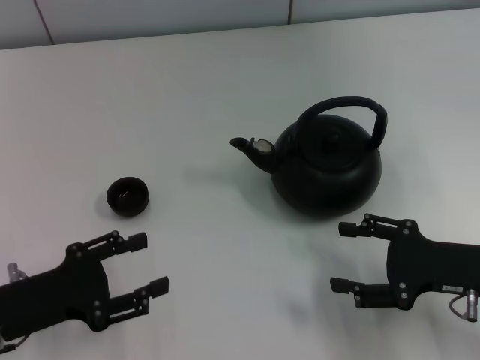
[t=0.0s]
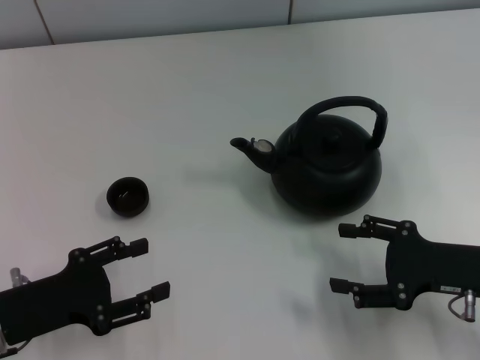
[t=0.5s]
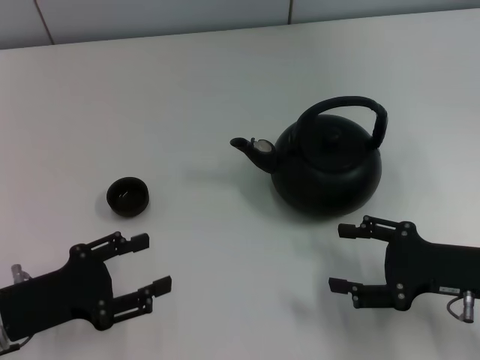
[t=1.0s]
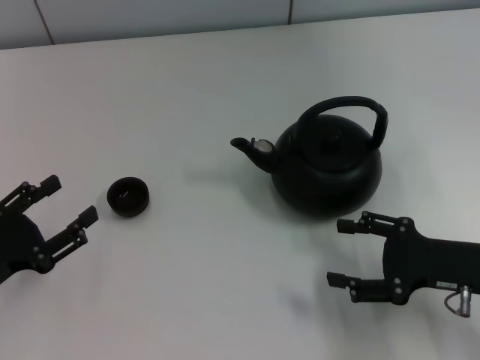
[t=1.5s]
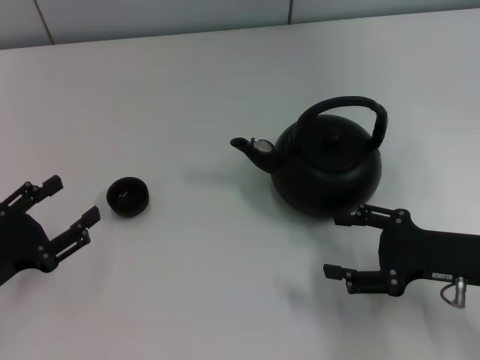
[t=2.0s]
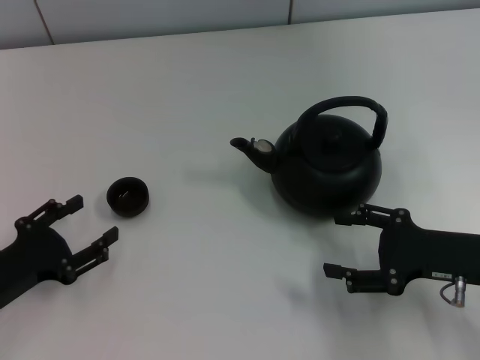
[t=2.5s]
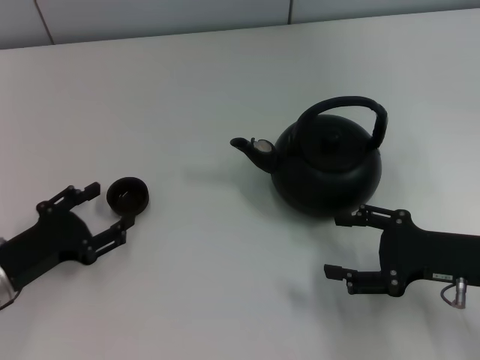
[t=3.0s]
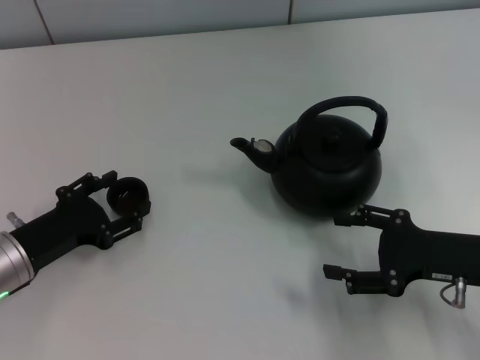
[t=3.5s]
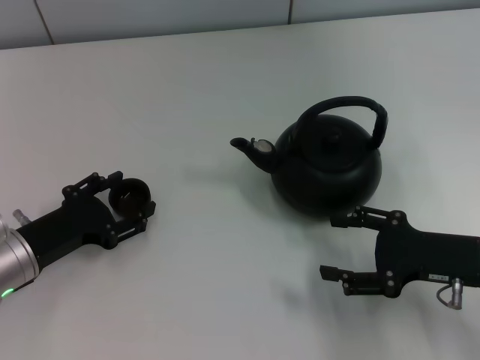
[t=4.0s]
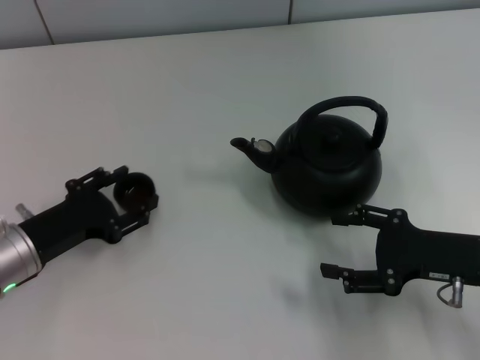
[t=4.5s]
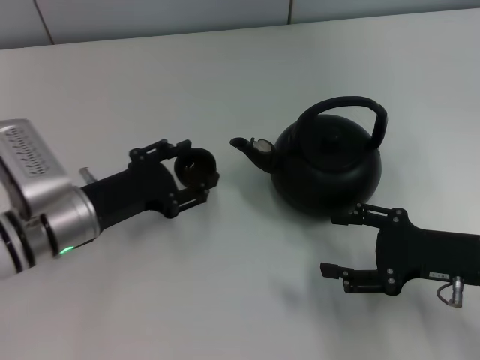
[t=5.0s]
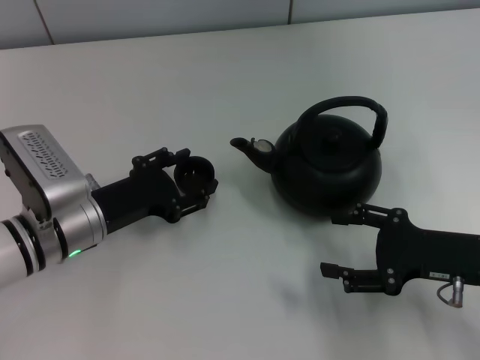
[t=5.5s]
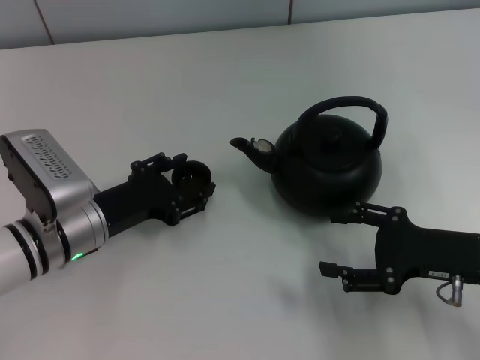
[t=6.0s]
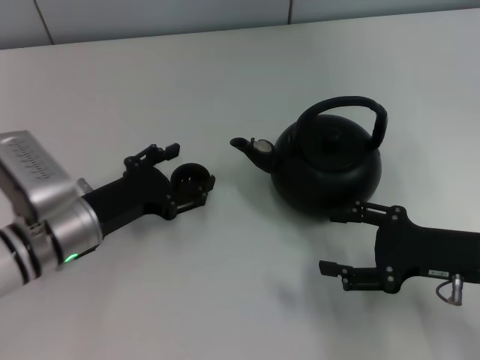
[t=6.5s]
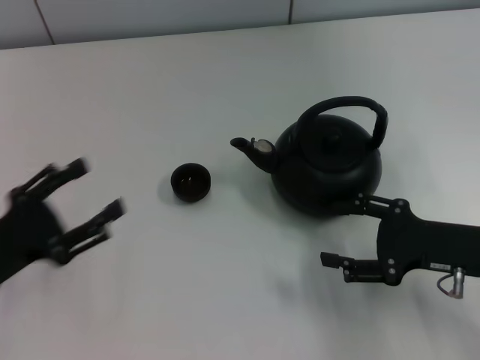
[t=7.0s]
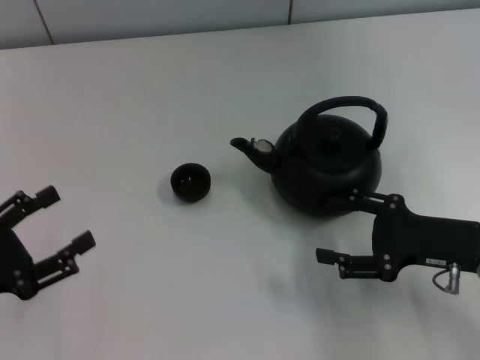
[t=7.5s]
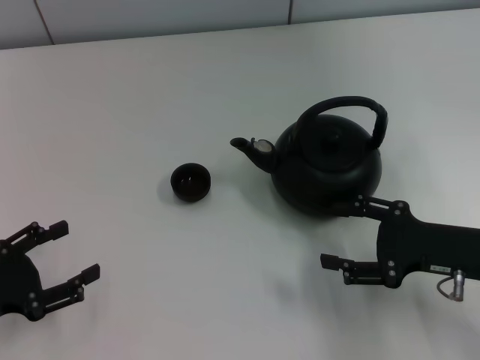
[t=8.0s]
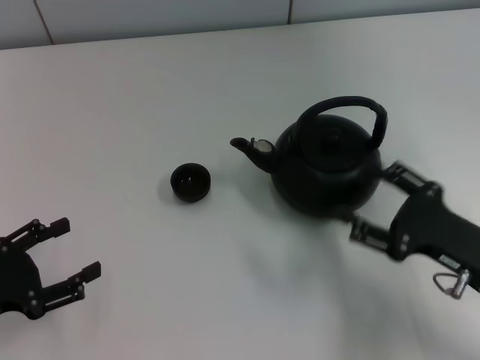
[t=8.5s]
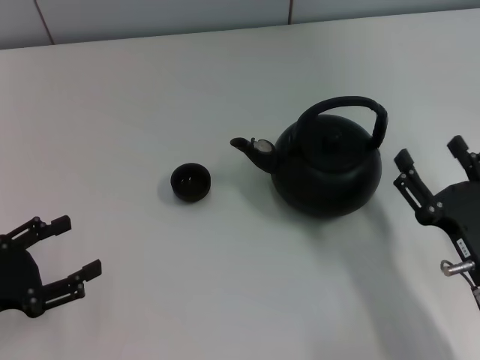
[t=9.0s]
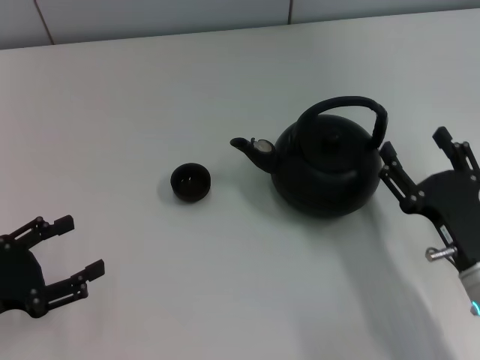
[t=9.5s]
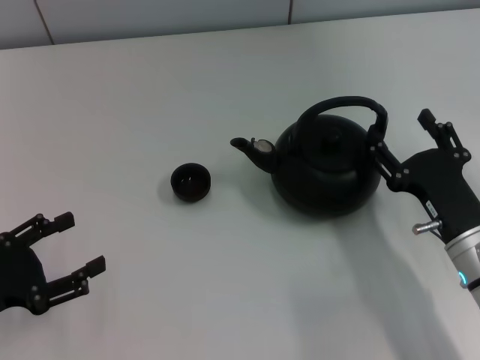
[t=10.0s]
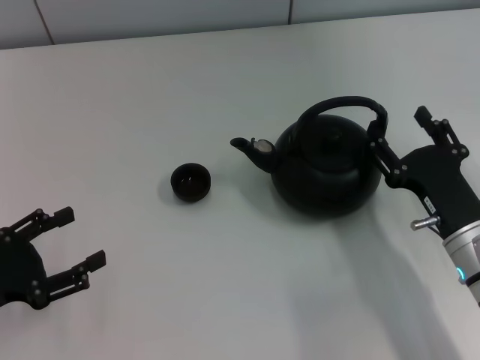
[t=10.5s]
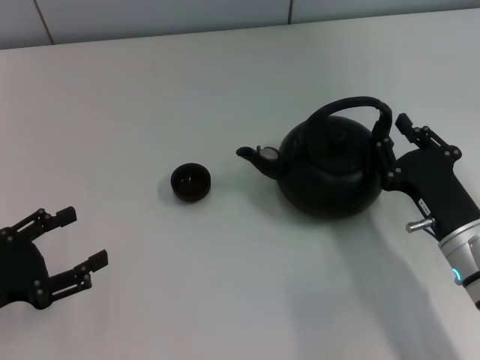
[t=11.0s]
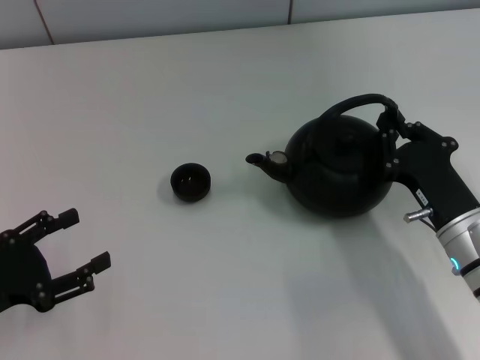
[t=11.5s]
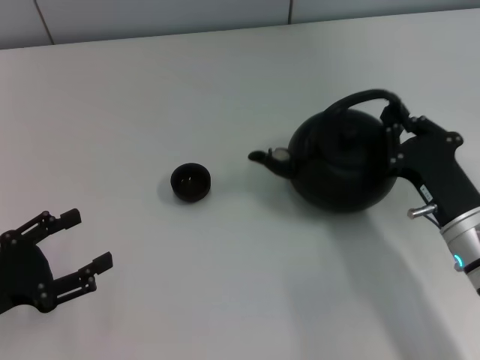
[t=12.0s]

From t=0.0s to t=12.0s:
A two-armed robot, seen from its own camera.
Task of the whole recording: Grasp the handle of the teapot with one hand and pour tea into the teacup.
Step, from t=0.0s to t=4.5s: Pick up the teacup with the left gripper.
Step, from t=5.0s to t=6.5s: Place the teacup in the center of view with the left gripper.
From t=2.0s to t=4.0s: The left gripper goes some 5 cm forward and to the right.
From t=4.0s to t=6.0s: The left gripper is displaced to the right by approximately 5 cm, and opens.
From t=6.0s to t=8.0s: The left gripper goes some 15 cm to the left and backward, and opens its fingers.
From t=8.0s to t=10.0s: The right gripper shifts by some 5 cm.
From t=10.0s to t=12.0s: The right gripper closes.

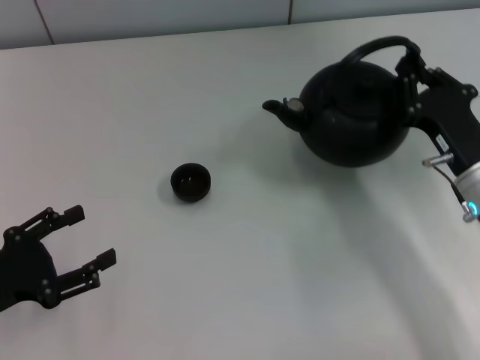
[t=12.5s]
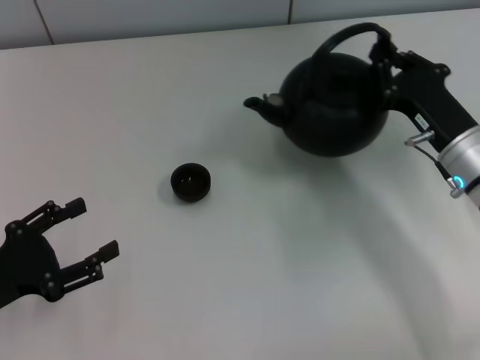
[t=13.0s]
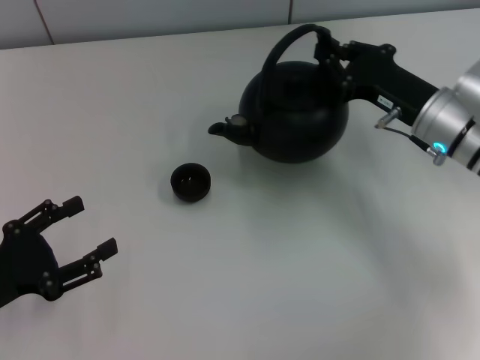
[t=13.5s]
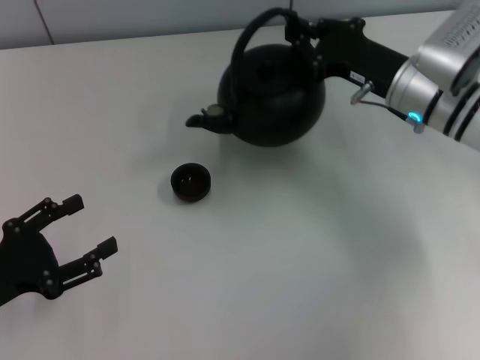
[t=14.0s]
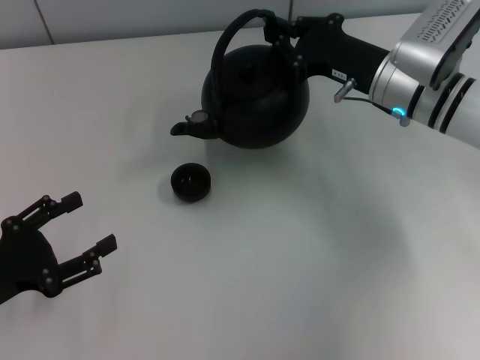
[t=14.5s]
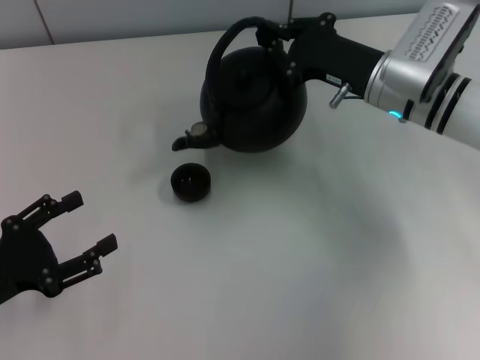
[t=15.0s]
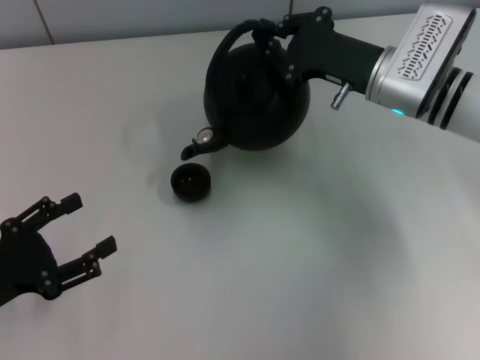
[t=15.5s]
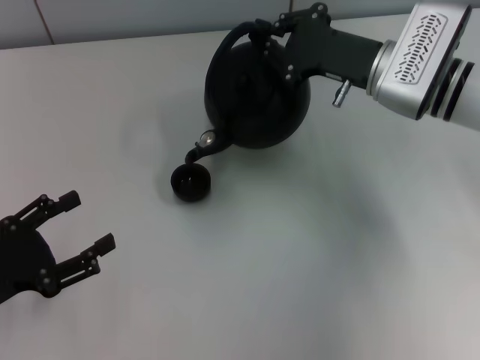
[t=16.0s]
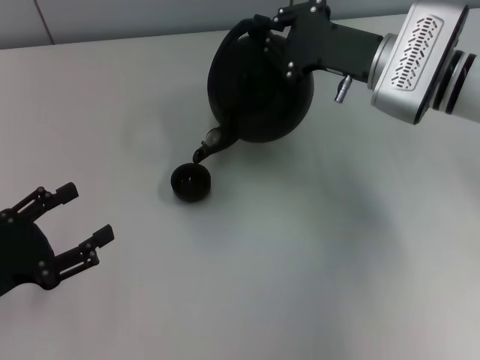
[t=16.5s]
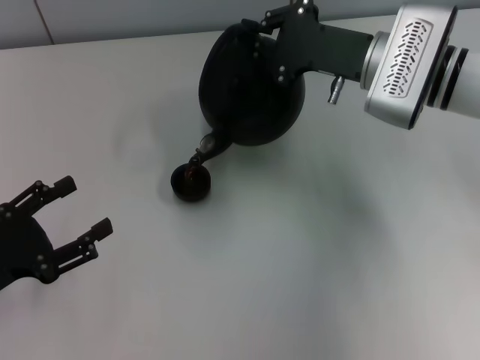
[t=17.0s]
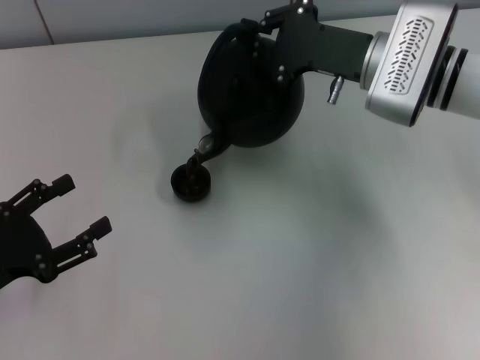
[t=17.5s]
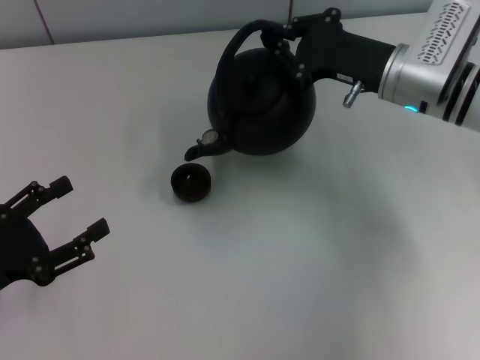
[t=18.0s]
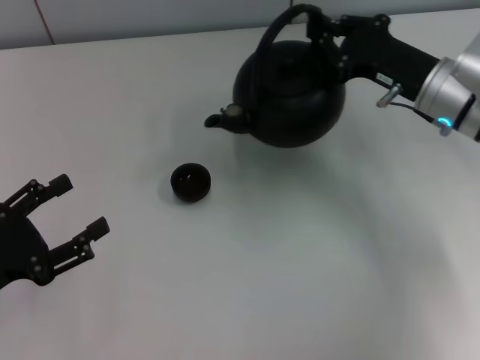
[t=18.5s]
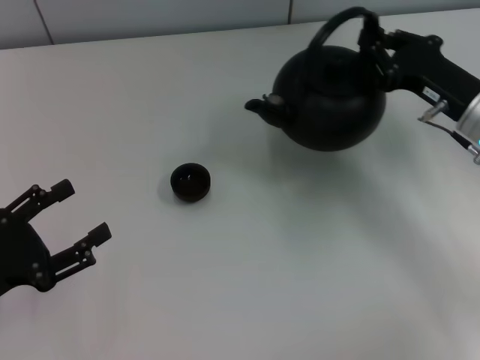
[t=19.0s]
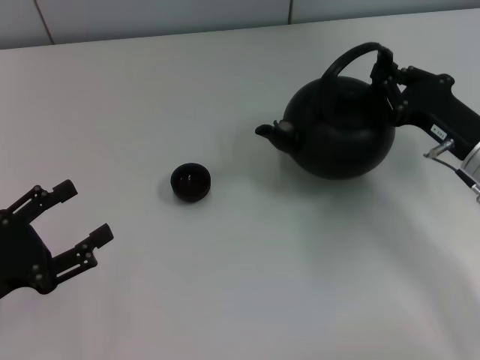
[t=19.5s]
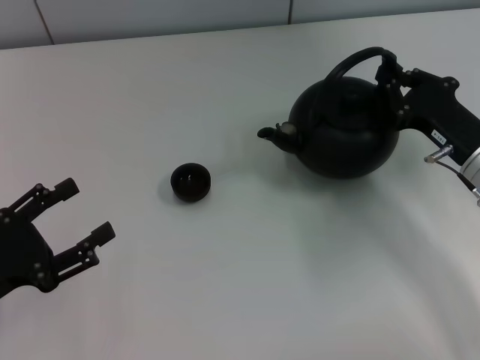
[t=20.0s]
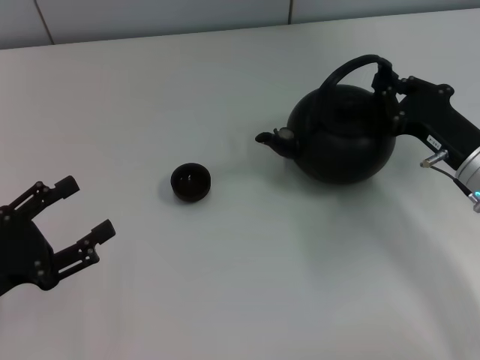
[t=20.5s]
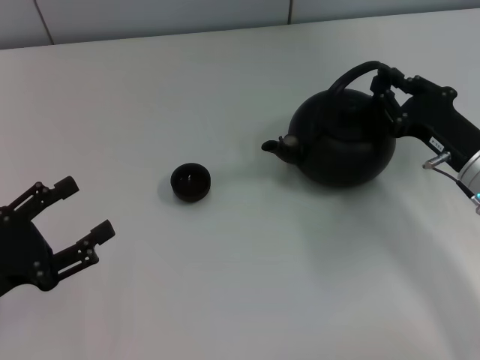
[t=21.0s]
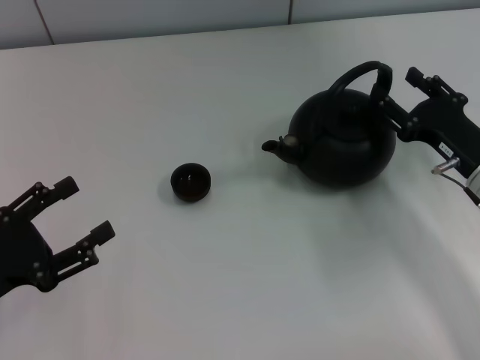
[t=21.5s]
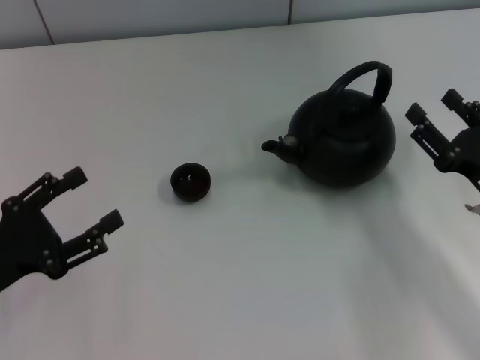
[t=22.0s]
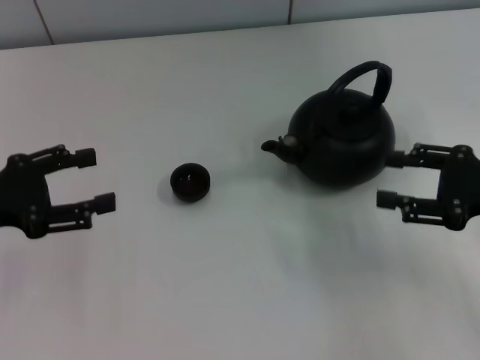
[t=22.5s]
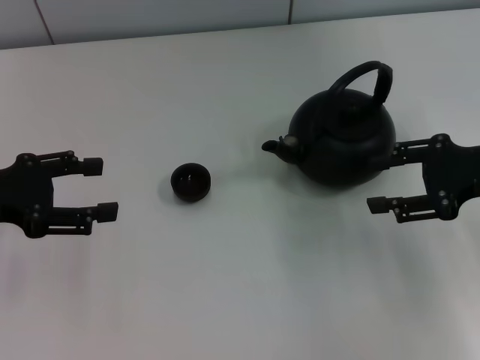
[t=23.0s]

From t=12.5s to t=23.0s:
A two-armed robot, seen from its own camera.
Task of the whole recording: Grasp the handle of the teapot with one hand and pour tea into the teacup.
Step, from t=19.0s to t=21.5s: Put down the teapot with the right gripper.
From t=12.5s to t=14.5s: The right gripper is displaced forward, upward and to the left by some 15 cm.
From t=16.5s to t=19.0s: The right gripper goes approximately 10 cm to the right and backward.
From t=19.0s to t=21.0s: The right gripper ends up roughly 5 cm from where it was.
From t=21.0s to t=23.0s: The right gripper is displaced upward by approximately 10 cm, and opens. Meanwhile the left gripper heads forward and upward, covering roughly 10 cm.

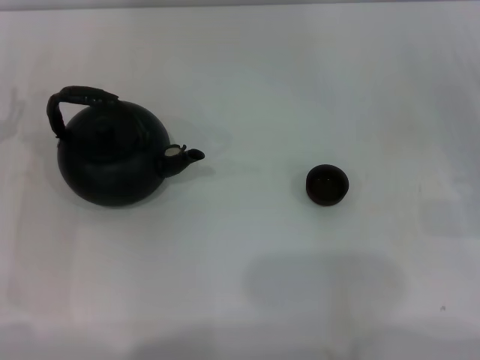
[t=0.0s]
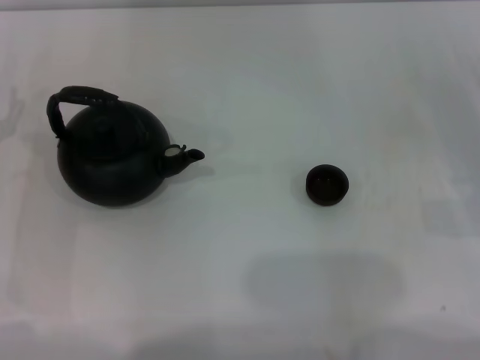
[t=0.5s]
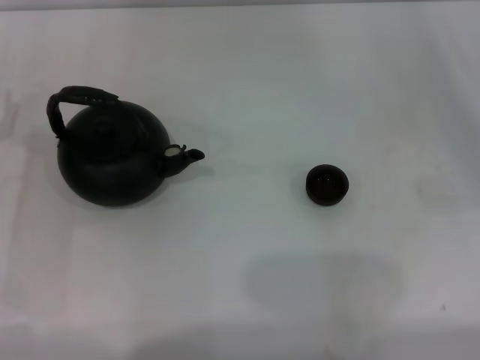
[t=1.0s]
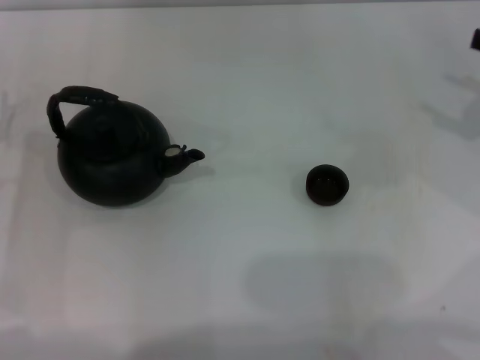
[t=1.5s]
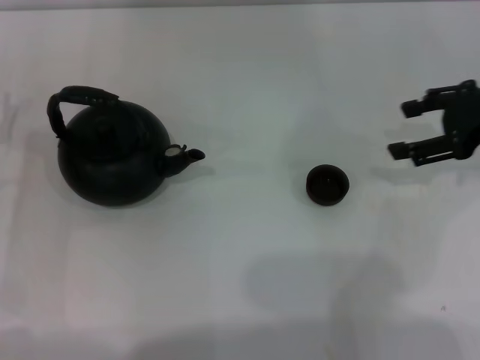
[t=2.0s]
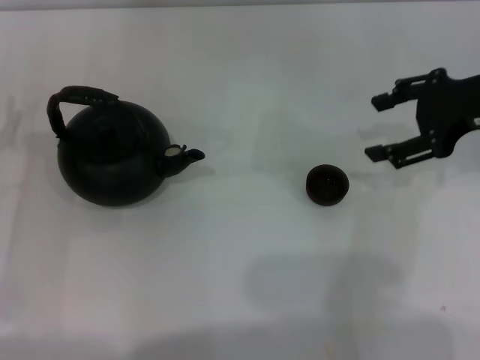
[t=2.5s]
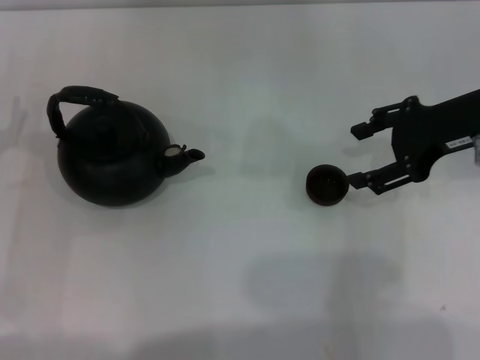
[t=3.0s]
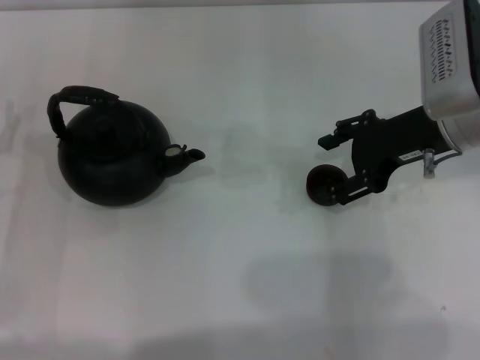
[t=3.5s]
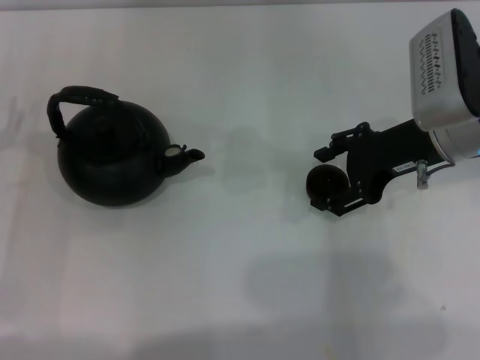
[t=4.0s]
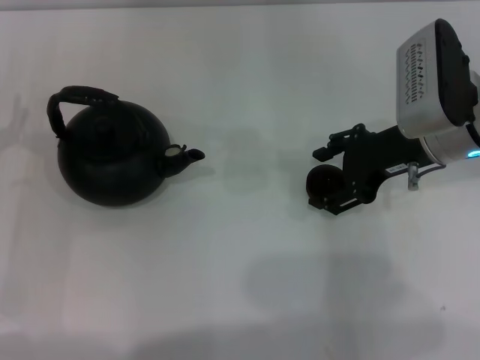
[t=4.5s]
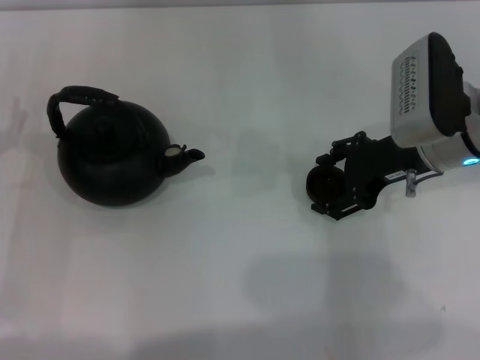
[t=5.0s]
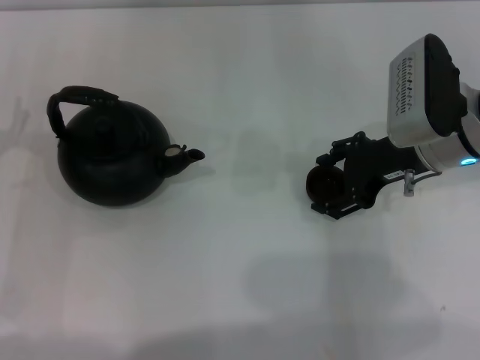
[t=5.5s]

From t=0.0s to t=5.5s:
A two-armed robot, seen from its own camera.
Task of the whole recording: Grasp the handle of the teapot with one hand and pour tea into the teacup.
From t=0.0s to t=2.0s: The right gripper moves upward, forward and to the left, about 15 cm.
From t=2.0s to t=3.5s: The right gripper travels to the left by roughly 10 cm.
From t=3.5s to t=5.5s: The grippers stay close to where they were, moving slightly.
